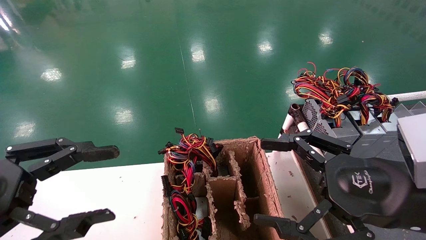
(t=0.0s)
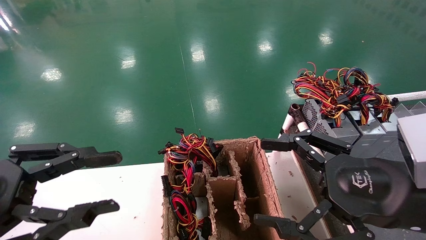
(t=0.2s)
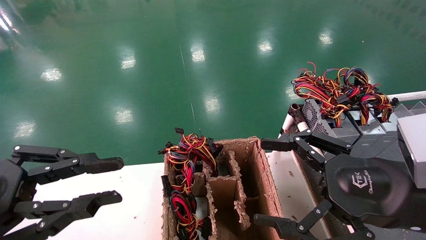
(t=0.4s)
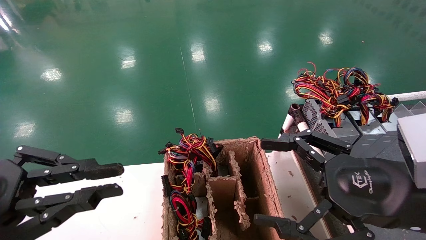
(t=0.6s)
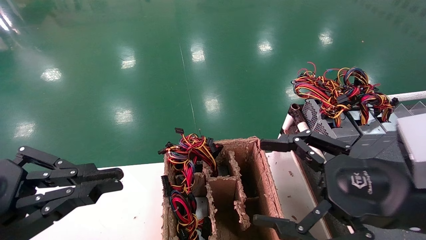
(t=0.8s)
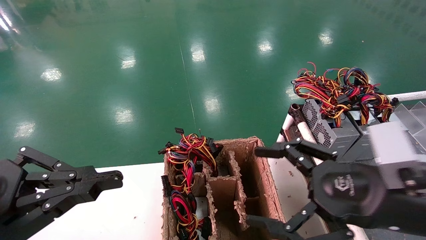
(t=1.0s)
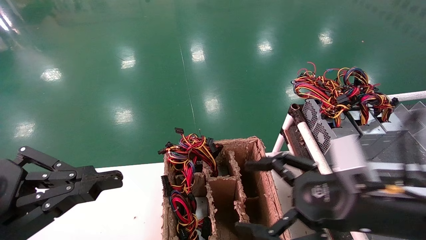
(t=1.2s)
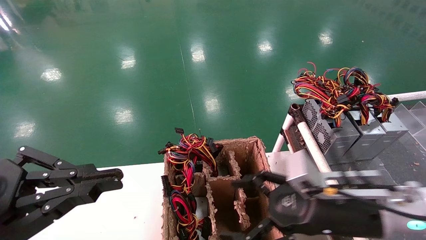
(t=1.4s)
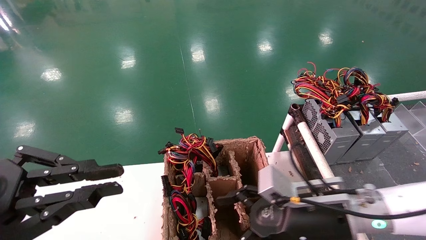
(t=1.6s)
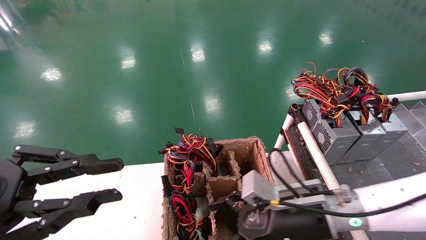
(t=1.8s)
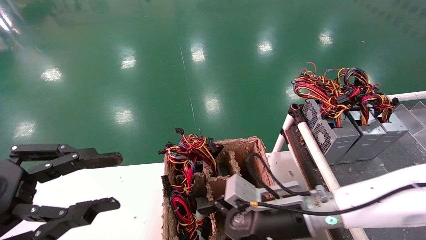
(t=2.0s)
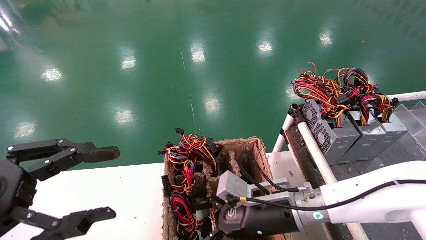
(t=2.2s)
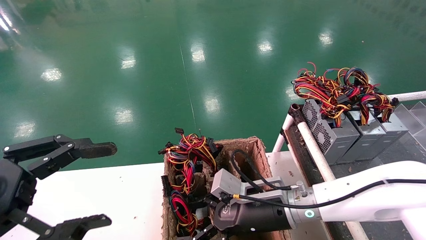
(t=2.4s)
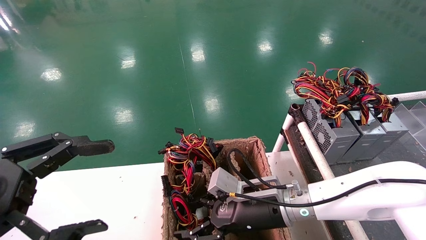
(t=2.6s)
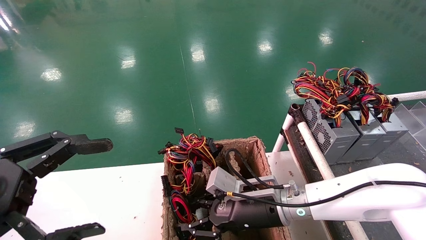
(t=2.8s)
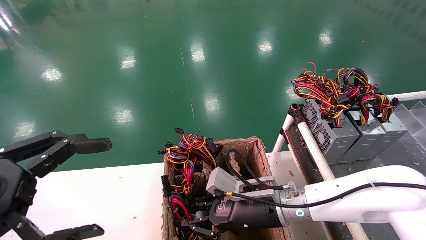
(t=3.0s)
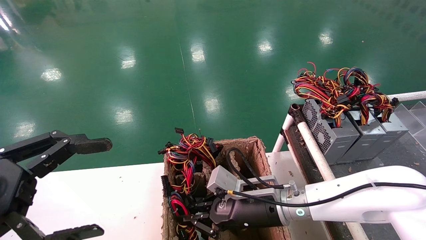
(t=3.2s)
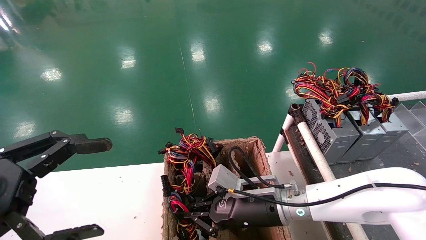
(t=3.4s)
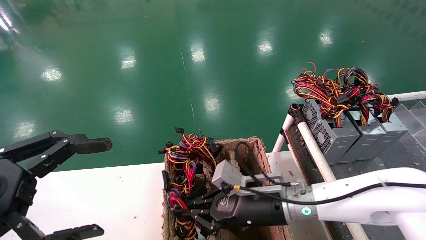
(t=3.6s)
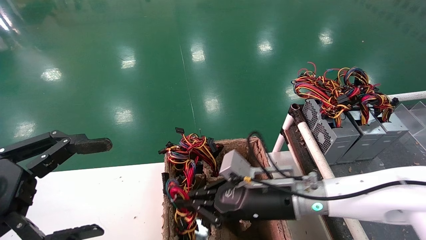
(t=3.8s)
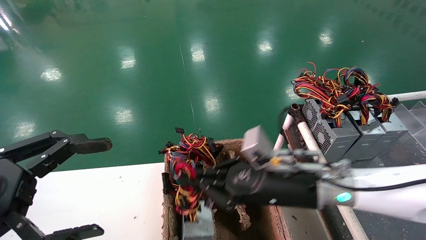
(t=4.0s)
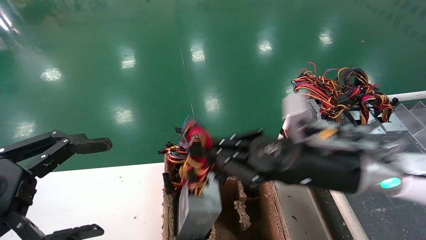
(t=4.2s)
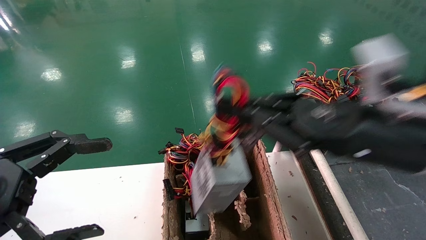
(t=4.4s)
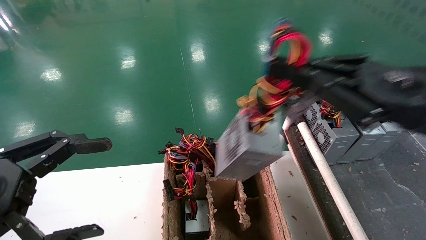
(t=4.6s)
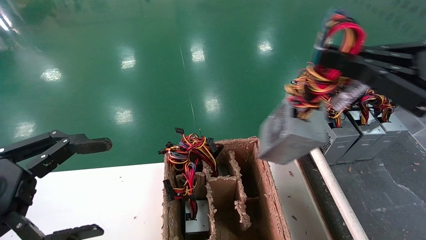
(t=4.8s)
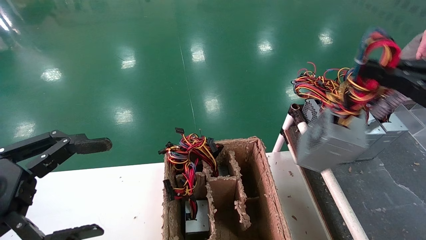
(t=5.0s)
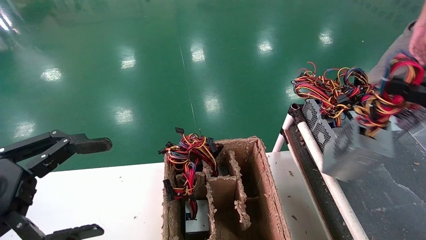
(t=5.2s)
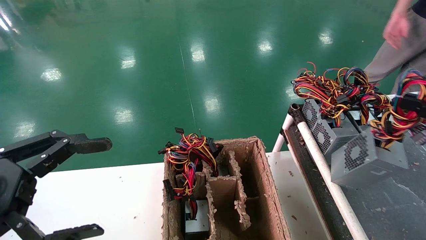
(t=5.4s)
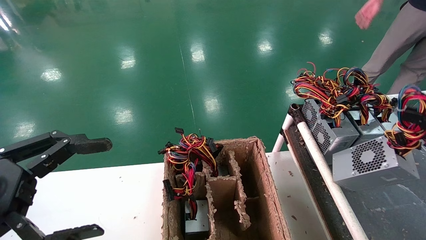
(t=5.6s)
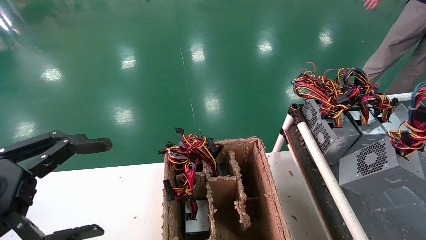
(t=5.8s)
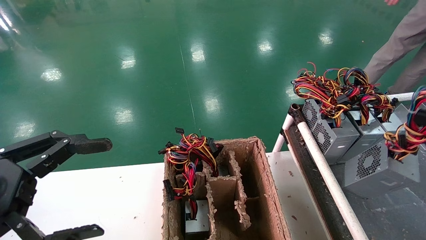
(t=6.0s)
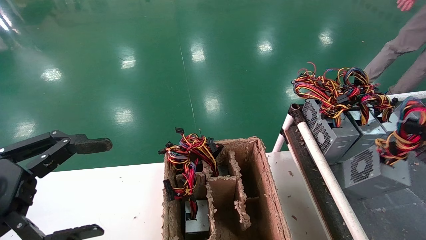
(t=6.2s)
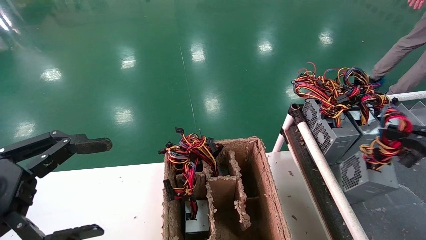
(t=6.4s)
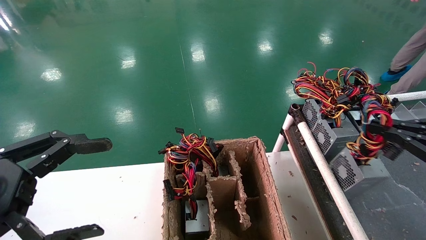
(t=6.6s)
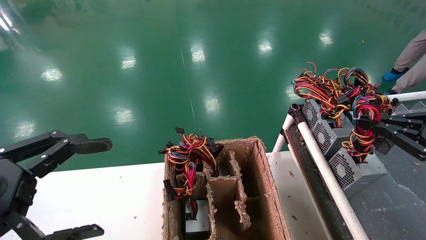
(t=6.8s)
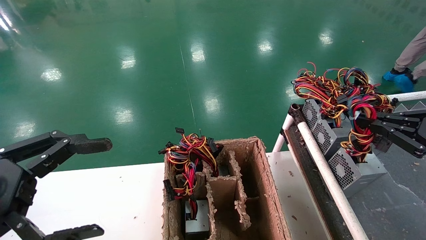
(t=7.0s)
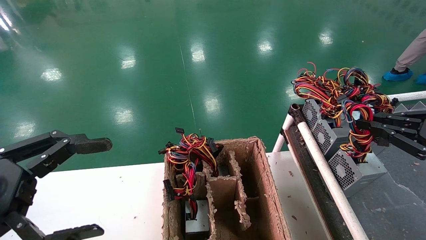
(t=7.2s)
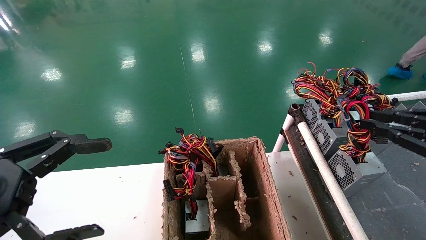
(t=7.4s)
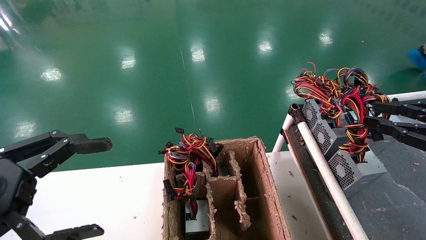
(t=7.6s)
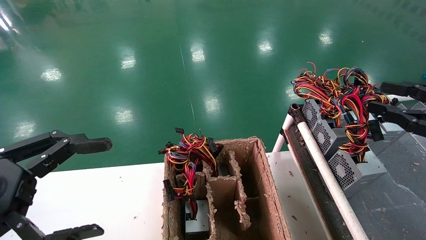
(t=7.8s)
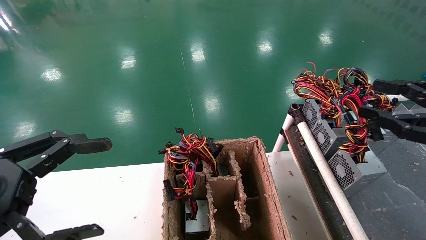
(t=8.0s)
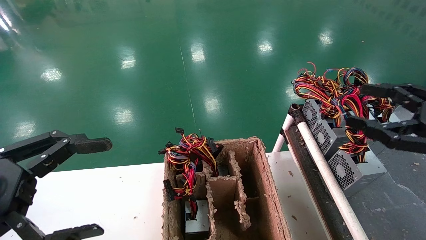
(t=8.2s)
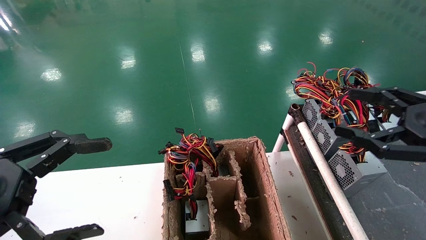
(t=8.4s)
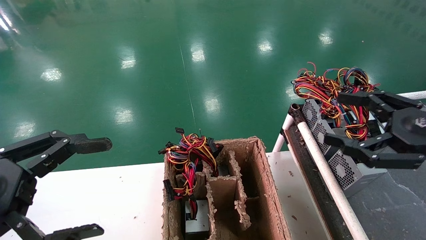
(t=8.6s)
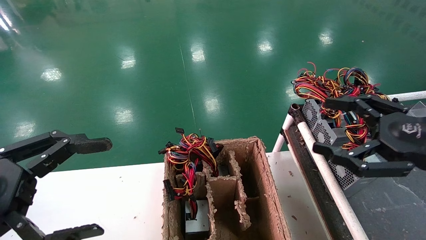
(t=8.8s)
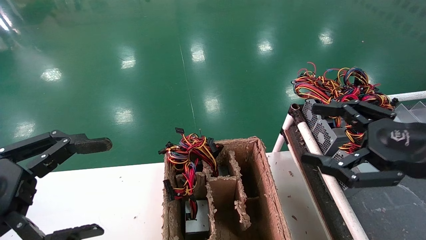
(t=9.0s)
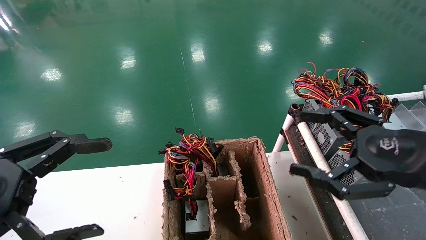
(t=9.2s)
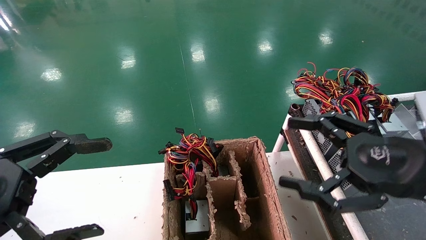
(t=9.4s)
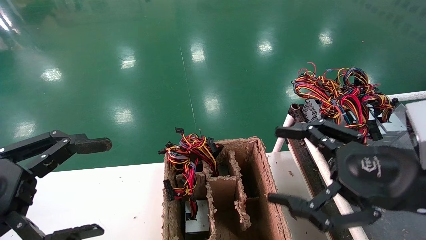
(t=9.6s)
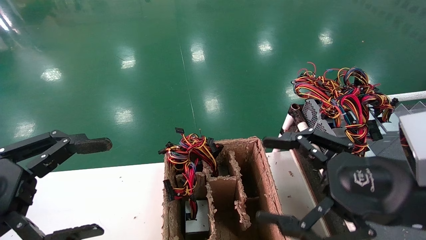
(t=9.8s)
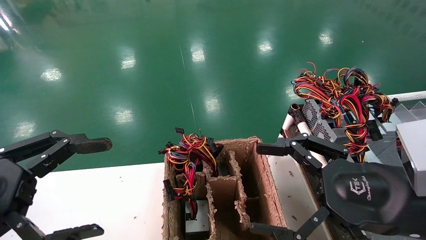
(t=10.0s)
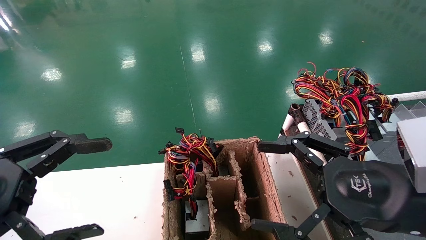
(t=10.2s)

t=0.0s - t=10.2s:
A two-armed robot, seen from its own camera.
Step, t=0.6s - t=4.2s: Grab and lift the power supply from the large box.
Step, t=4.4s - t=7.6s: Place the power supply on the operating table.
t=0.0s - t=1.4s: The left gripper closes up. The right gripper travels downward, forward and to the left by about 10 cm.
t=1.4s - t=3.0s: The right gripper shifts some 15 cm to the left, forward and downward, and closes its fingers, while the left gripper opens up.
t=3.0s - t=4.4s: The right gripper goes about 25 cm upward, to the right and backward, and closes up.
t=4.4s - t=5.8s: The right gripper is displaced to the right by approximately 25 cm.
t=5.8s - t=7.2s: The right gripper moves forward, about 5 cm.
t=7.2s - t=8.8s: The right gripper is displaced to the left by about 10 cm, and opens up.
t=8.8s - t=10.2s: The right gripper moves to the left, approximately 10 cm.
